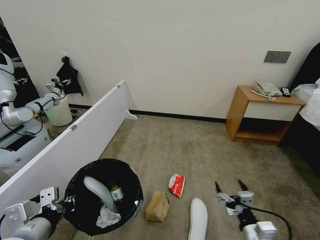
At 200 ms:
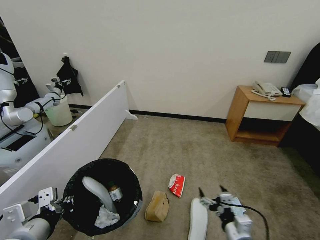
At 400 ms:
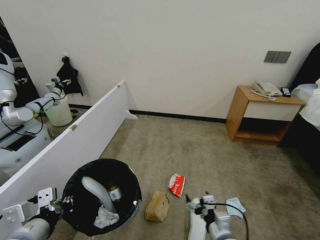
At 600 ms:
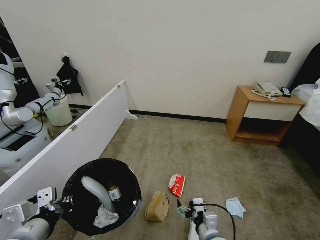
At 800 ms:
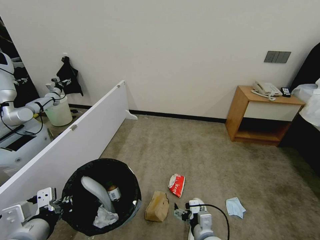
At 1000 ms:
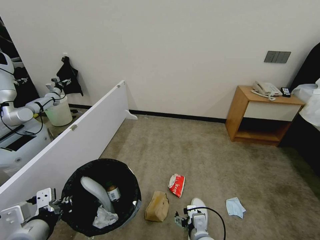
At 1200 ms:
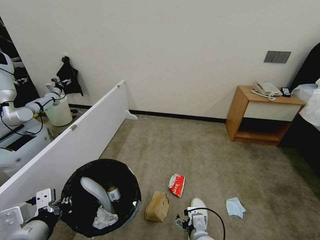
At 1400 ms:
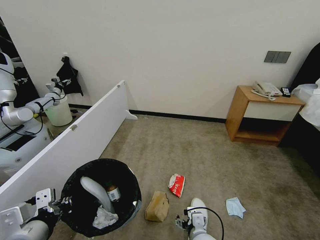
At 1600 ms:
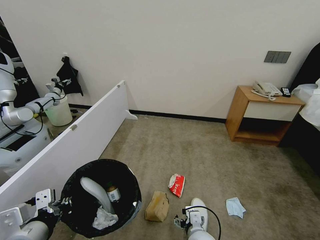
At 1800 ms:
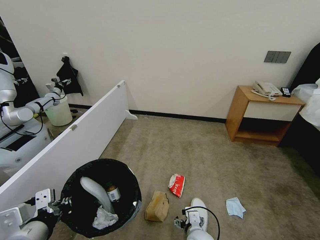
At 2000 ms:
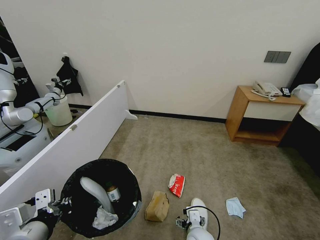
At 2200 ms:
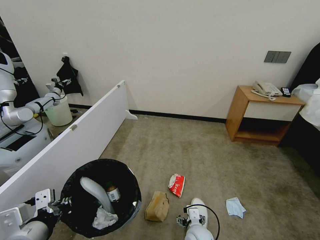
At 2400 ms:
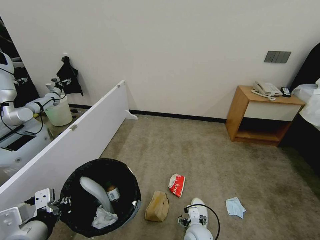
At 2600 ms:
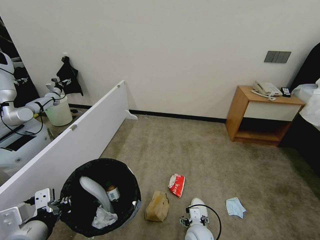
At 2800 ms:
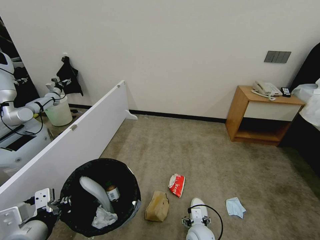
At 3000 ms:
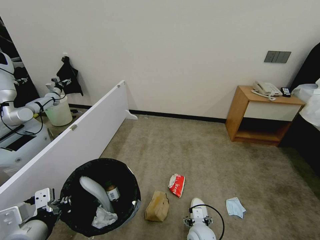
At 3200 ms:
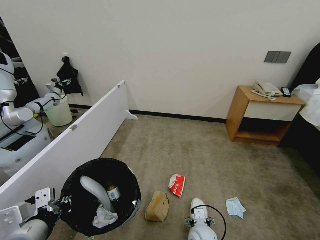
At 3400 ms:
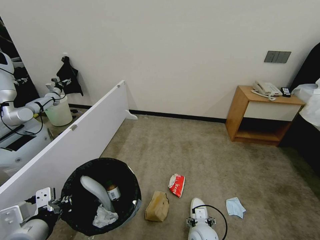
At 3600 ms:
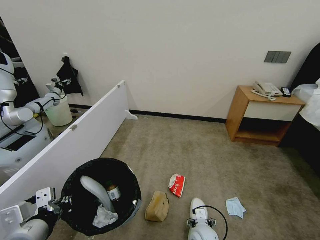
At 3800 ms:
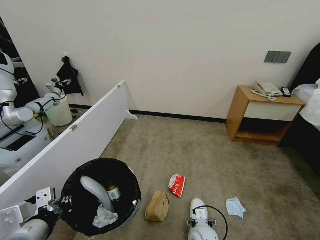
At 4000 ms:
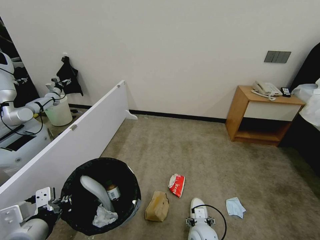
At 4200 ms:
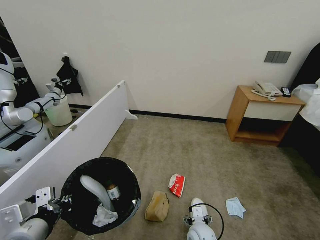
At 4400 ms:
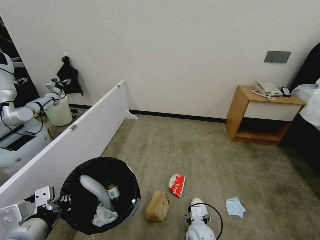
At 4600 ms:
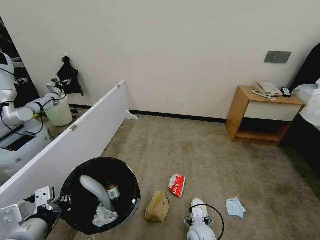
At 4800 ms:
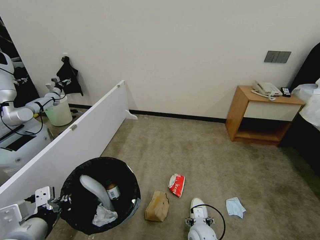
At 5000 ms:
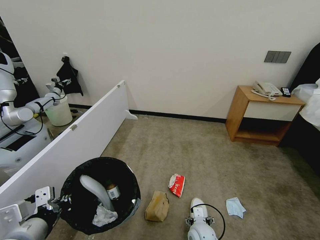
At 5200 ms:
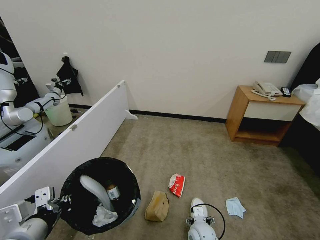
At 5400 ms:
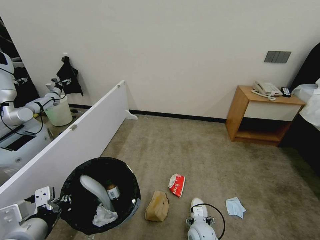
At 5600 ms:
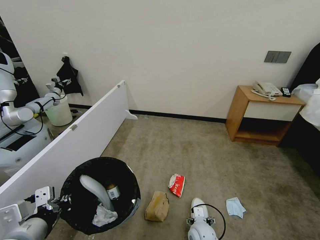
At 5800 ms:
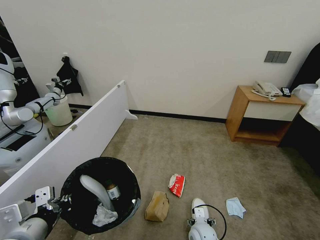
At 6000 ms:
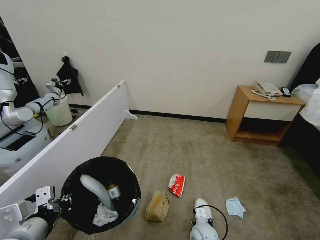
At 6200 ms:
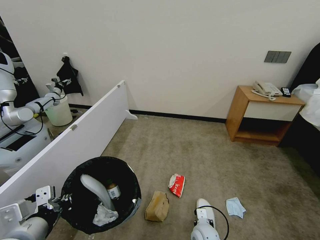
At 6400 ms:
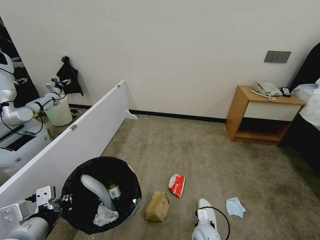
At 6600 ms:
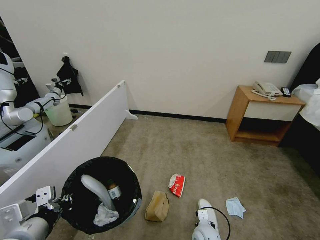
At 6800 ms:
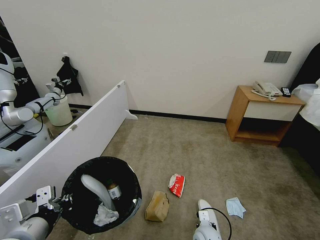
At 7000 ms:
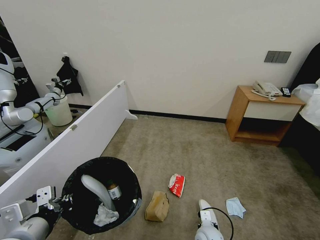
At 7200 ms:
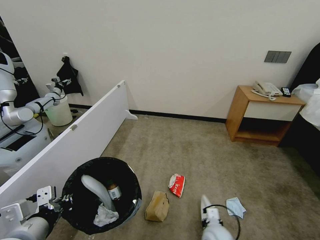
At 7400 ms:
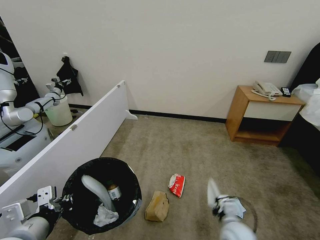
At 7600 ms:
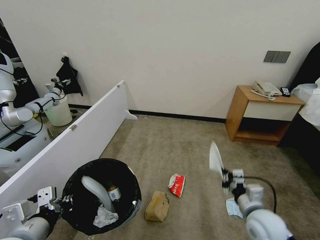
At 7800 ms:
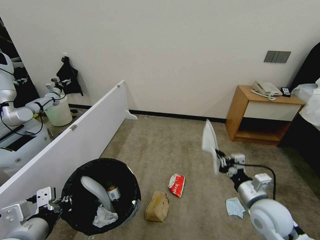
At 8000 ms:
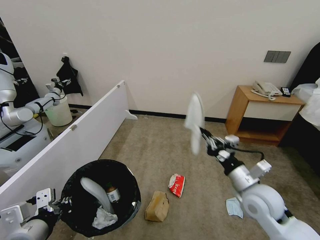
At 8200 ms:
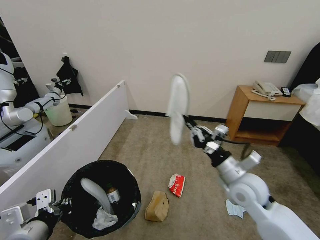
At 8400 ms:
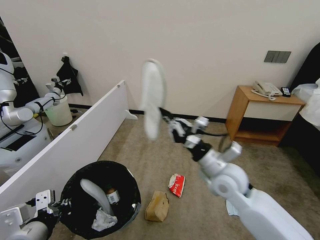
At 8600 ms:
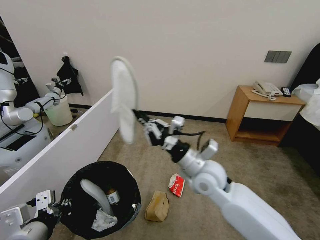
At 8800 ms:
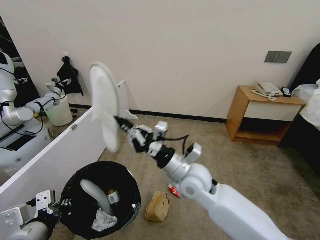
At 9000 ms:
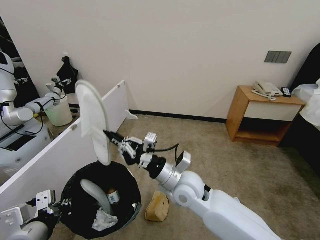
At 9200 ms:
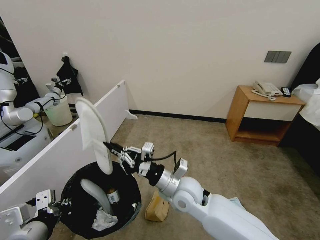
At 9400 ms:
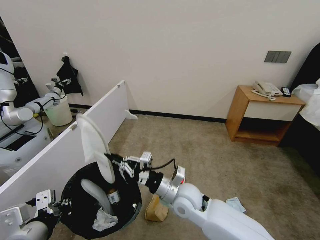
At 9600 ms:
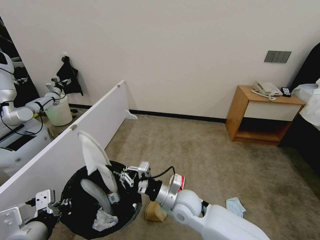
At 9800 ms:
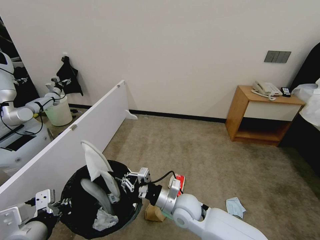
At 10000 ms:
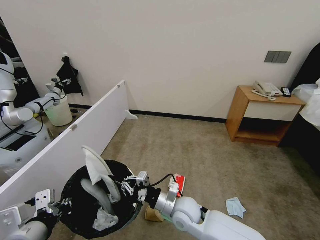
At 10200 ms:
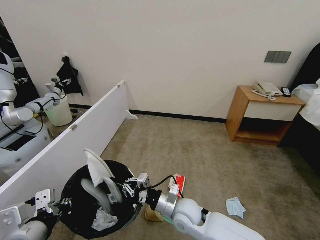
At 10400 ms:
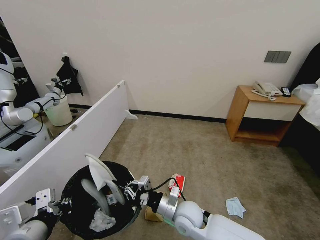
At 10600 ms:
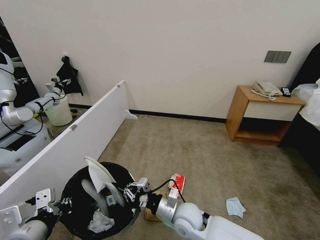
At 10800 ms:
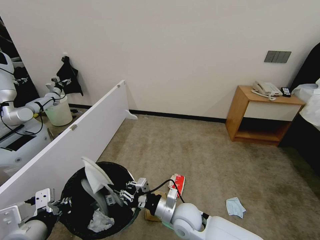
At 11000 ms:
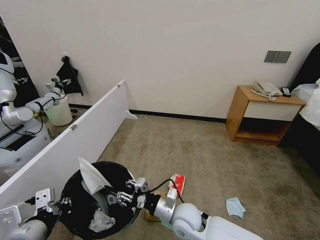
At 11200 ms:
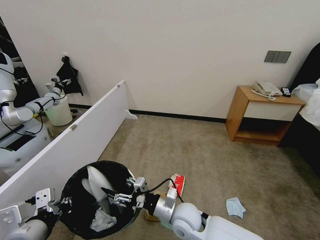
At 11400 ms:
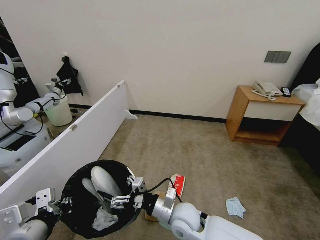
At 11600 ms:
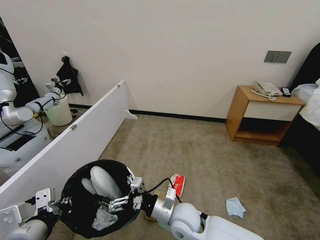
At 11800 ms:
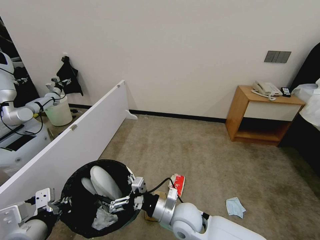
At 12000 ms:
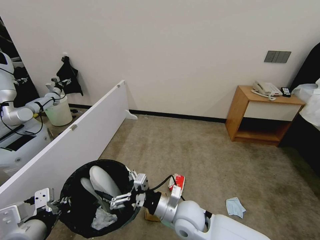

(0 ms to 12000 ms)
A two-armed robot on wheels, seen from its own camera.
Task of the whole recording: Pick up the trash bin, then pick up the garbage from the floor and place it into the trash bin.
0 ms - 1600 ms: The right gripper travels to the left by roughly 15 cm.
1600 ms - 3000 ms: The right gripper changes place by approximately 5 cm.
3000 ms - 4400 ms: The two grippers keep their place.
4400 ms - 6000 ms: The grippers move only a little.
6000 ms - 7600 ms: The right gripper moves upward and to the right, about 20 cm, and closes.
7600 ms - 9000 ms: The right gripper heads to the left and upward, covering approximately 25 cm.
9000 ms - 10400 ms: The right gripper moves downward, approximately 15 cm.
10400 ms - 12000 ms: The right gripper moves about 5 cm, and opens.

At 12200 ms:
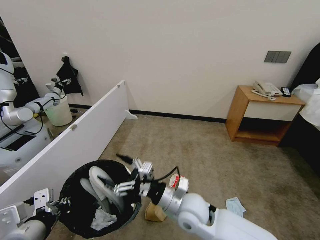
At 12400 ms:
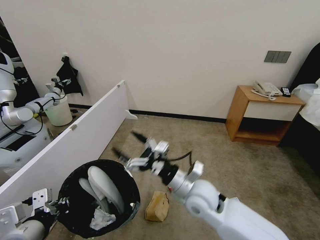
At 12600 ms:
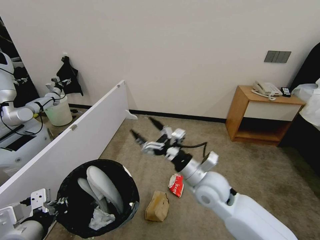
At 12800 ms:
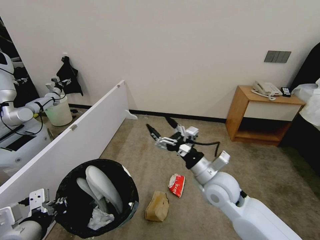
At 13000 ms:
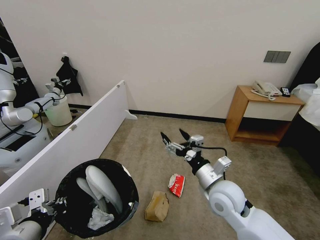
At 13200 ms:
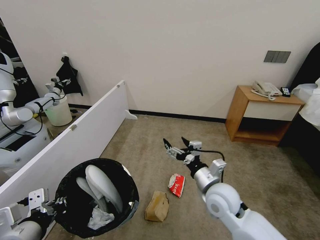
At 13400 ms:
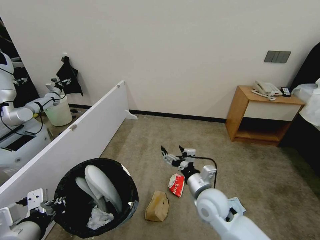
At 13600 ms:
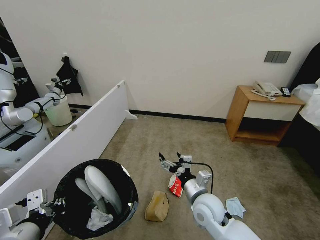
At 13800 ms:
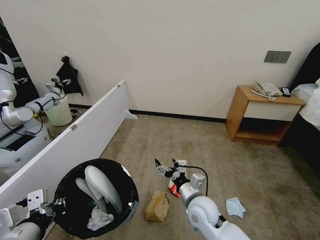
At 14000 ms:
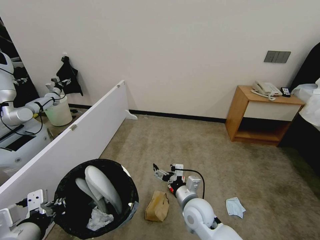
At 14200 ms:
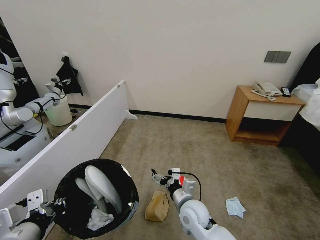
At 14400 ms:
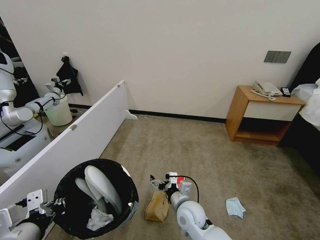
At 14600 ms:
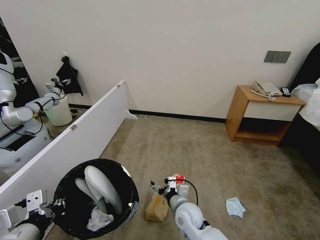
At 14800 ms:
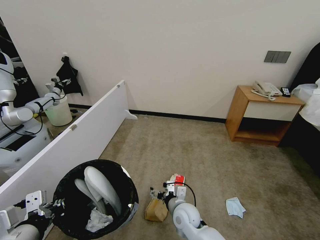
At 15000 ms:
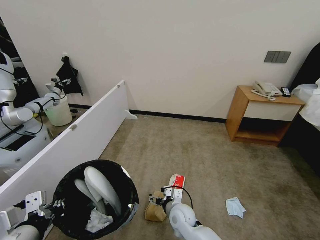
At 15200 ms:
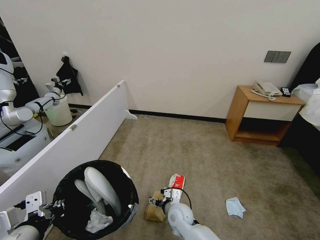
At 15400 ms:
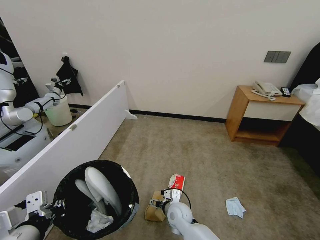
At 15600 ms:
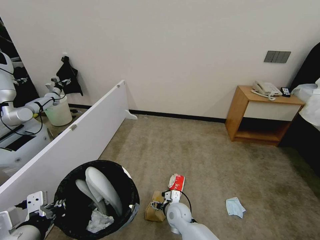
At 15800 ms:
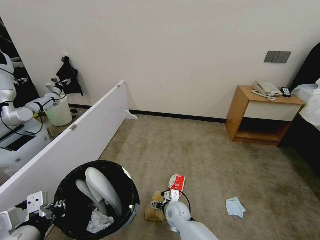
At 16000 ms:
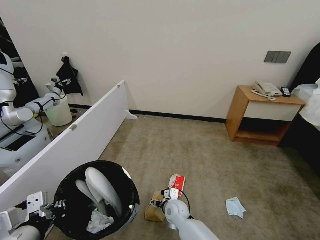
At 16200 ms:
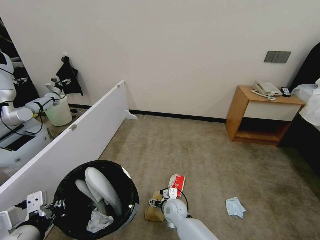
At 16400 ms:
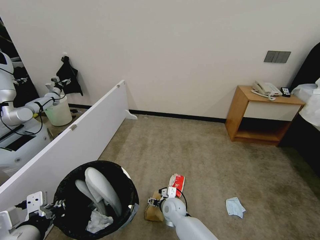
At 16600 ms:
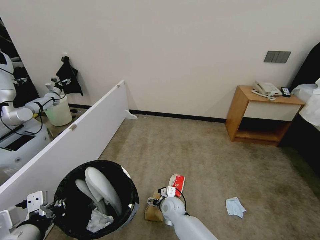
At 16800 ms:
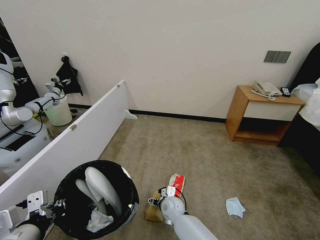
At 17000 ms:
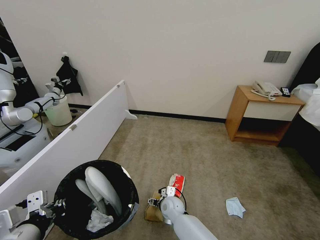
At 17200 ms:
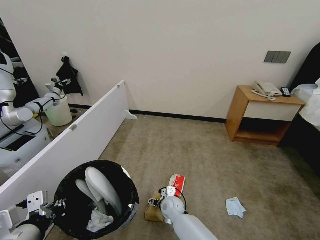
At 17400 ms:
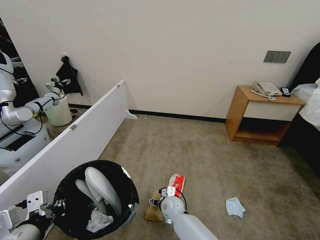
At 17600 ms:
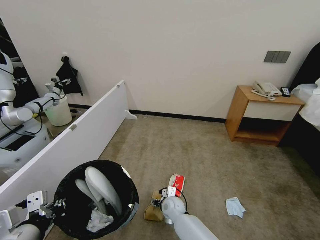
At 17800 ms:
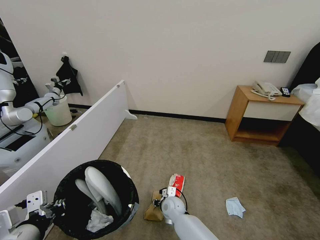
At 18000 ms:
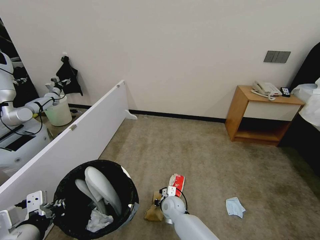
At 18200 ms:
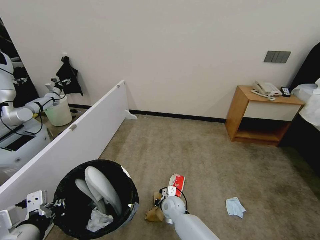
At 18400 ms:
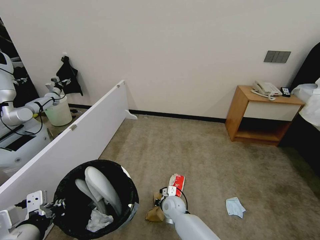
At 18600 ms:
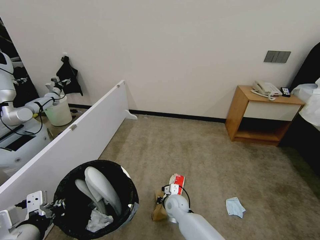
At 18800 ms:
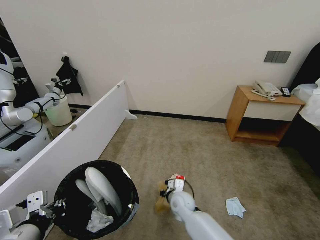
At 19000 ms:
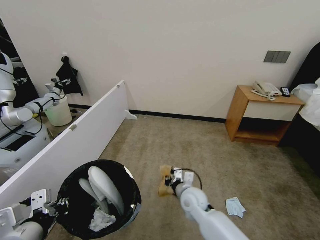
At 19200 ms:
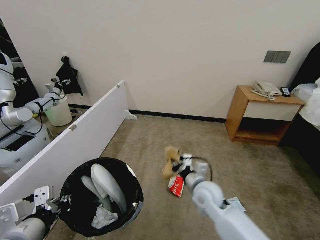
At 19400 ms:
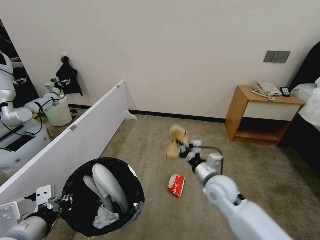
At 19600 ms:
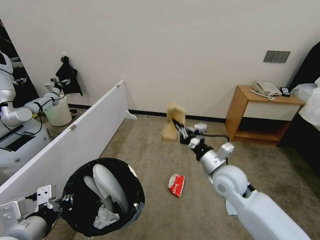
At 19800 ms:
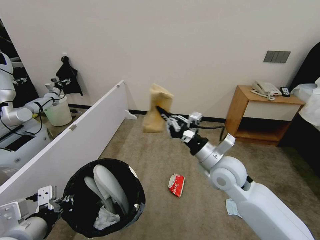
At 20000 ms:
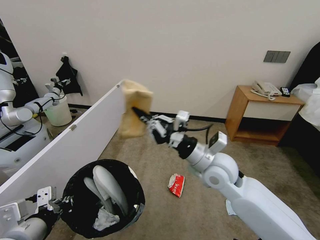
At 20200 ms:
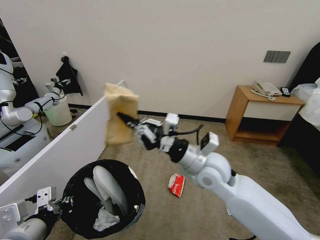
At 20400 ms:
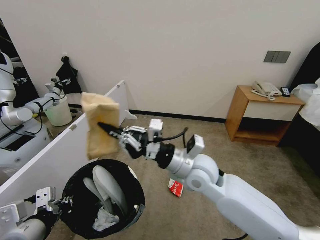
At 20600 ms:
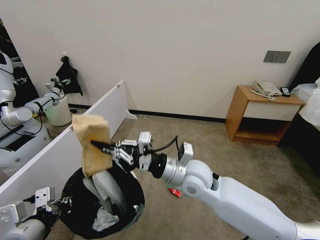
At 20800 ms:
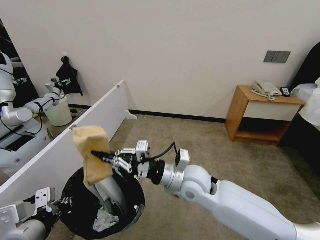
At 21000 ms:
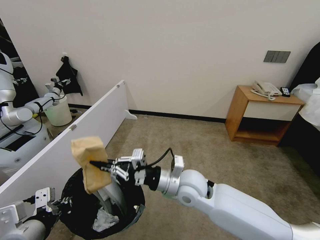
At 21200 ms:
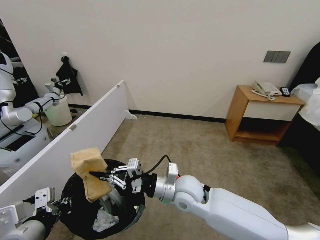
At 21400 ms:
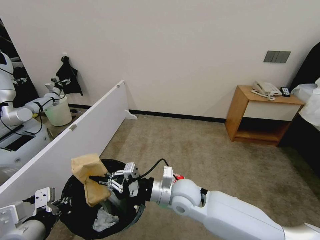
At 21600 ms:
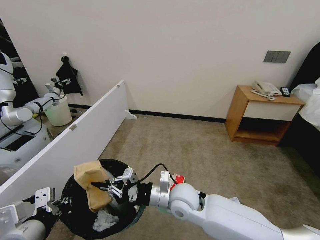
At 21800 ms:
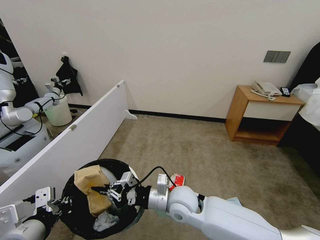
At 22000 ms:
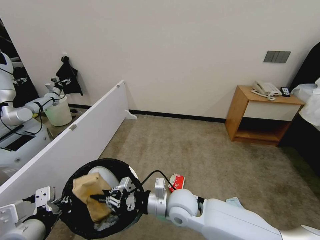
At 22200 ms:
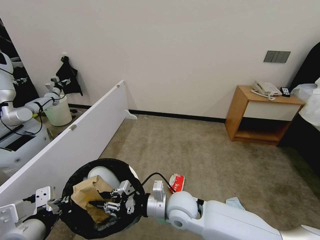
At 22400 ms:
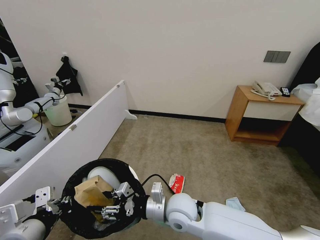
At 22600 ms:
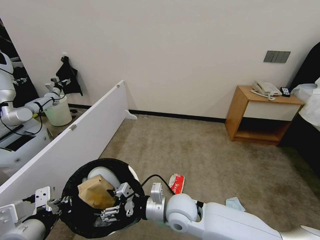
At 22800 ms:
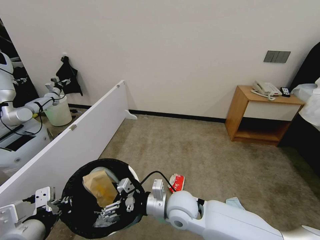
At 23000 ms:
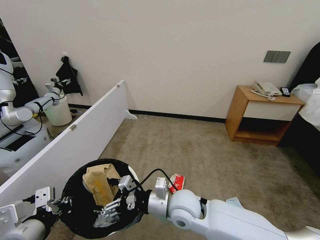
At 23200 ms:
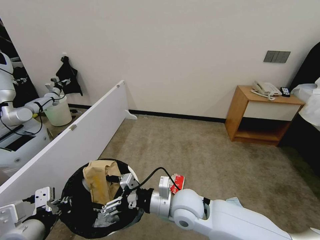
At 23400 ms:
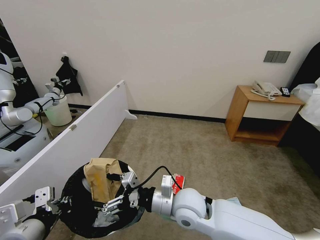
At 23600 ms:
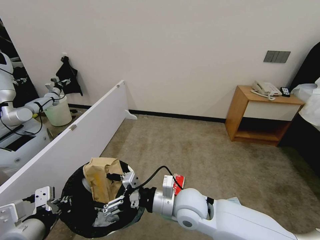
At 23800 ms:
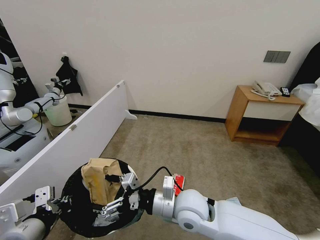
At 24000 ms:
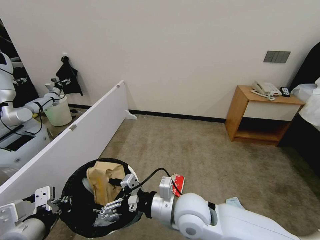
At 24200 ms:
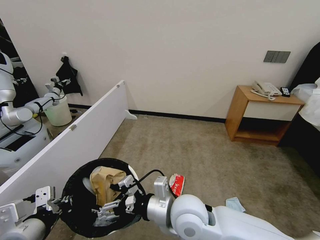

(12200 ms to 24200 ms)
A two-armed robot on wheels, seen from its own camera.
Task of the whole recording: Pick up the trash bin, then pick up the garbage from the floor and place it into the trash bin.
12200 ms - 13800 ms: The right gripper shifts roughly 5 cm downward.
13800 ms - 15200 ms: The right gripper travels downward and to the left by approximately 15 cm.
15200 ms - 16600 ms: The right gripper shifts by some 5 cm.
18200 ms - 19800 ms: The right gripper heads upward and to the right, covering roughly 35 cm.
19800 ms - 21200 ms: The right gripper travels to the left and downward by about 15 cm.
21200 ms - 22600 ms: The right gripper moves some 5 cm, and opens up.
22600 ms - 24200 ms: The right gripper heads upward, covering some 5 cm.
